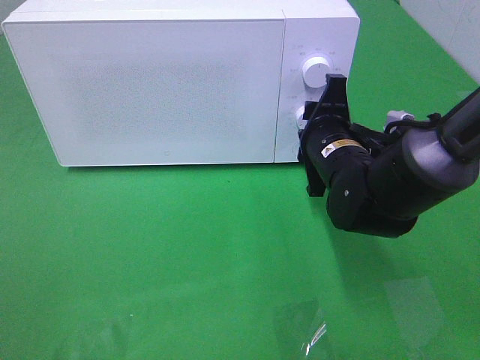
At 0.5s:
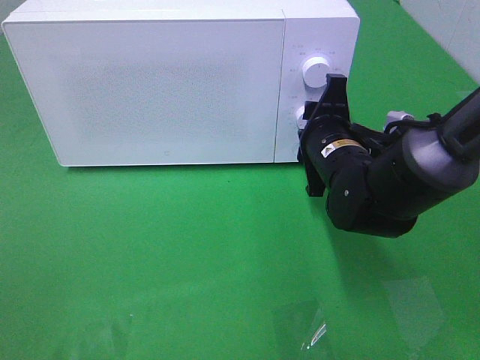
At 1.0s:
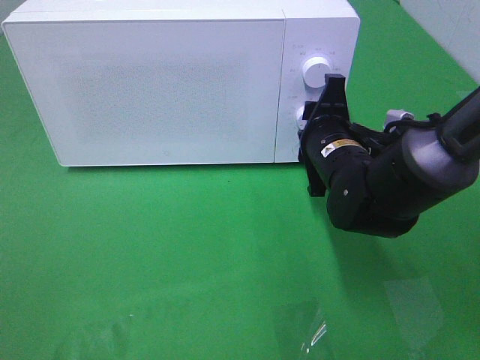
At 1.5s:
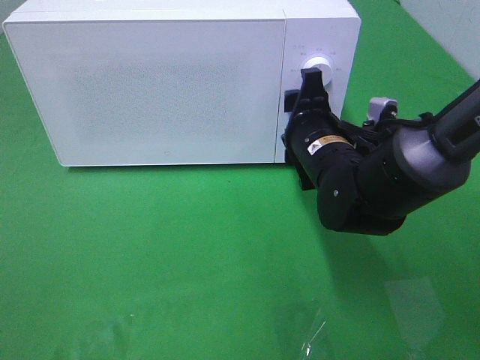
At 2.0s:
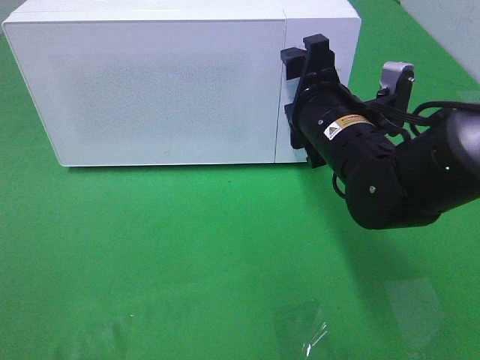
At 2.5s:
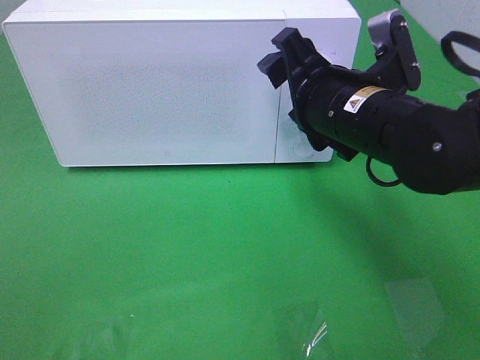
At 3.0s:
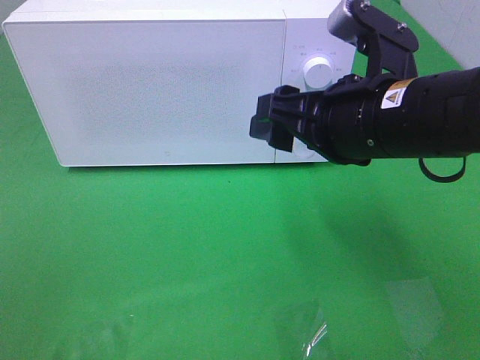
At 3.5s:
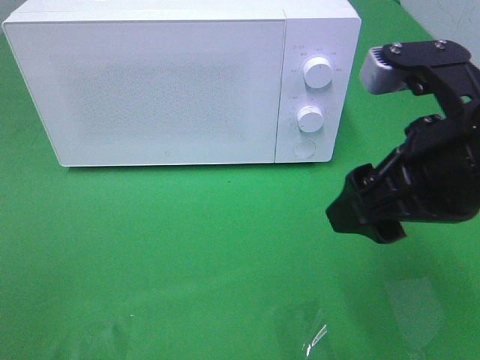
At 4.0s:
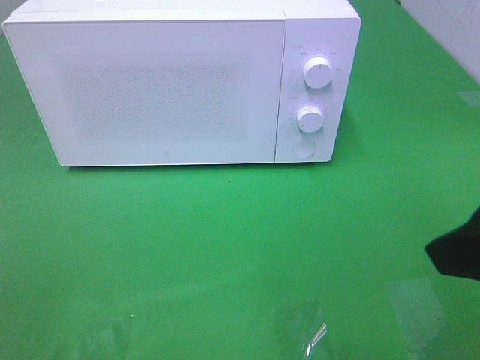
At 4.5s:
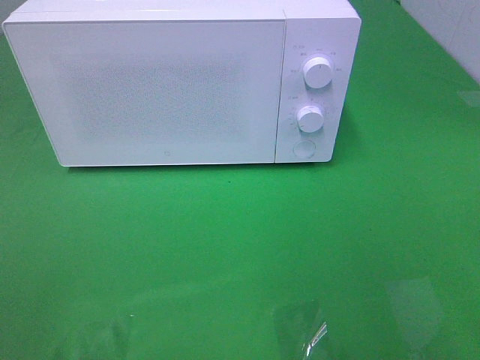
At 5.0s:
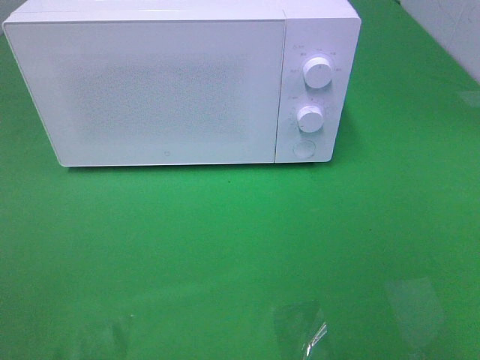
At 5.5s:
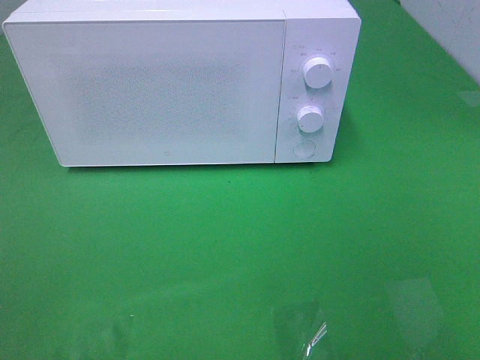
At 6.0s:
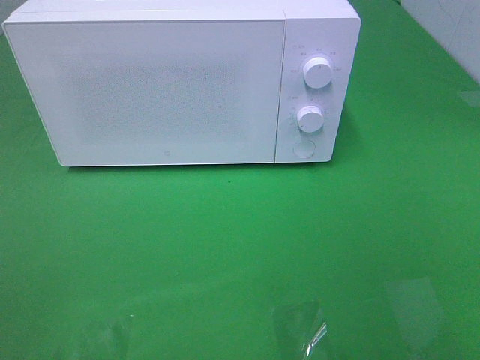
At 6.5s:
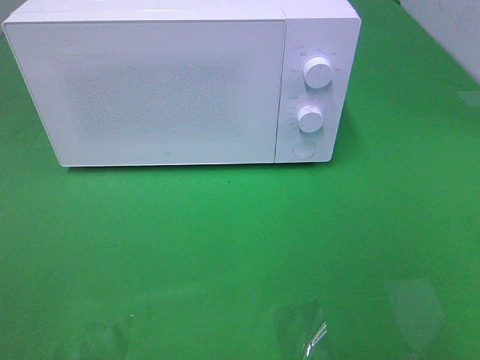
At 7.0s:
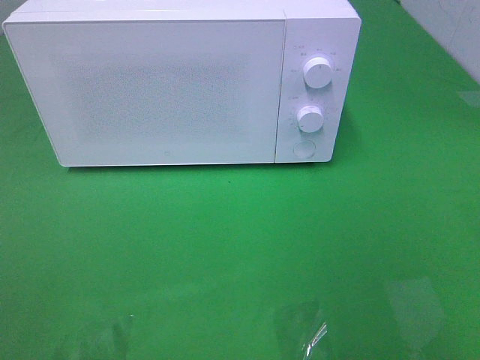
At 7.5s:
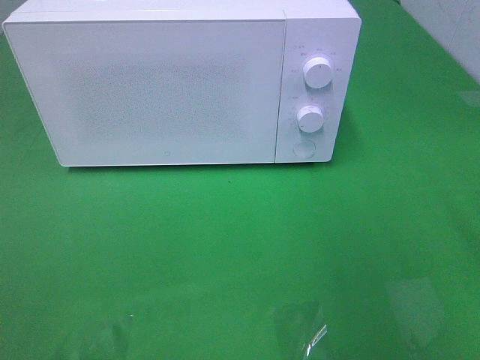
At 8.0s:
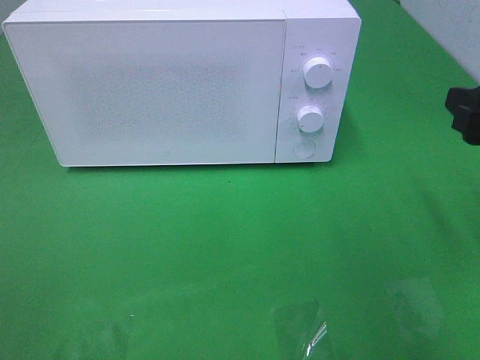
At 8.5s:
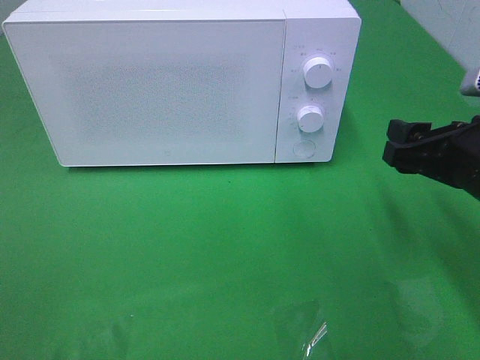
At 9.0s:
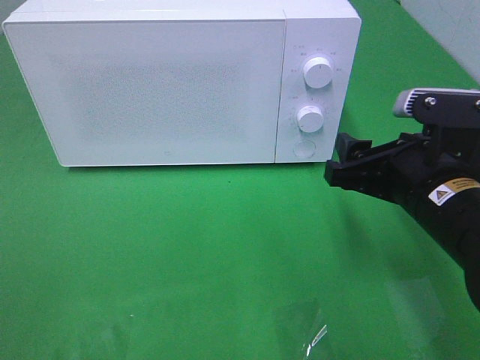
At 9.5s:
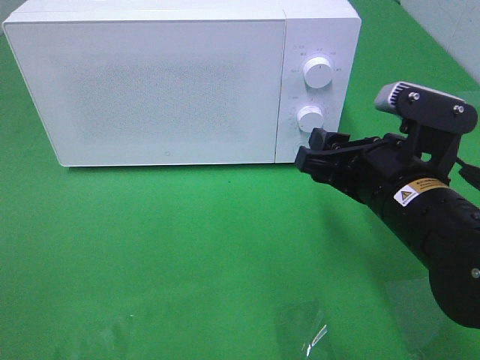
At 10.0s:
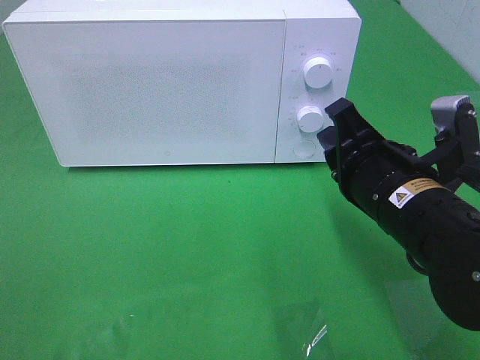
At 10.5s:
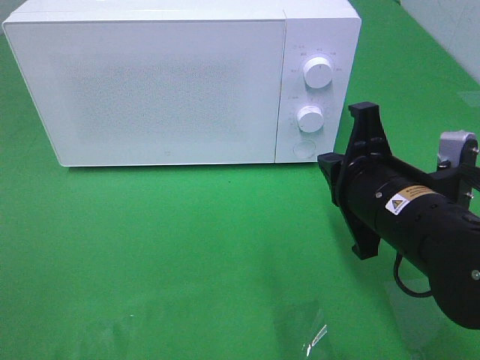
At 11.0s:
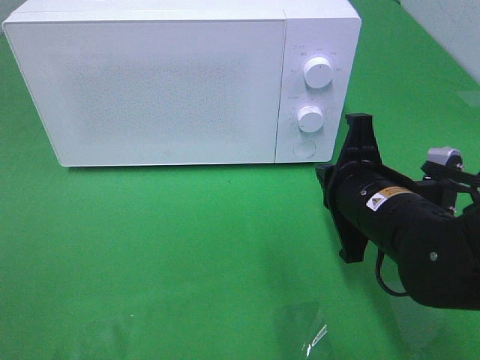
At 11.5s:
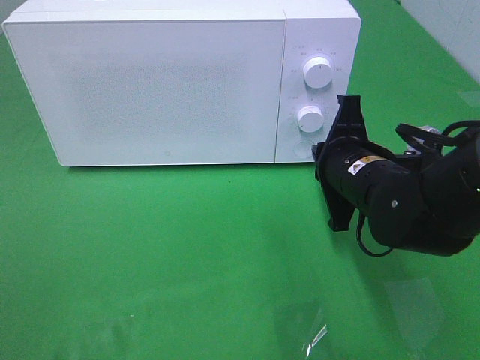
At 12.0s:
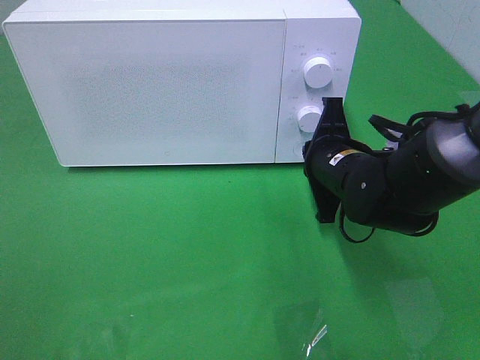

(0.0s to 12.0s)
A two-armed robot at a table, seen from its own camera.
Task of the whole recording: Heat the burger.
2.0s - 4.0s: The right gripper travels backward, upward and to the right by some 25 cm.
4.0s - 6.0s: The right gripper shifts roughly 15 cm backward and to the right.
6.0s - 8.0s: The right gripper heads forward, covering some 20 cm.
8.0s - 10.0s: The right gripper moves to the left and downward, some 15 cm, and closes its fingers.
10.0s - 12.0s: The right gripper is displaced forward and downward by approximately 10 cm.

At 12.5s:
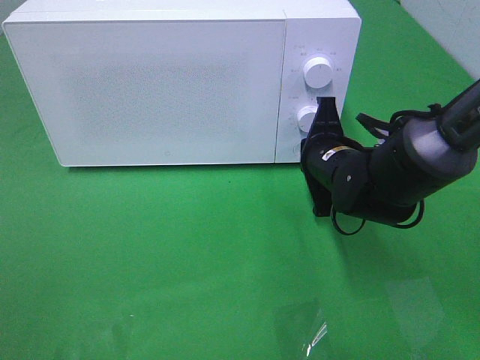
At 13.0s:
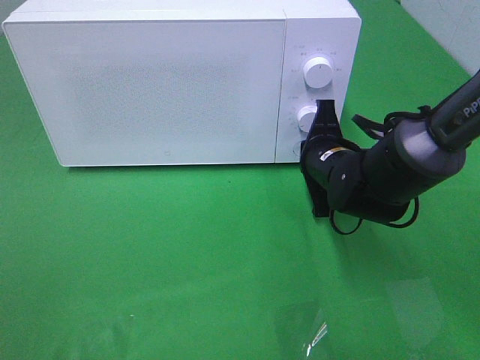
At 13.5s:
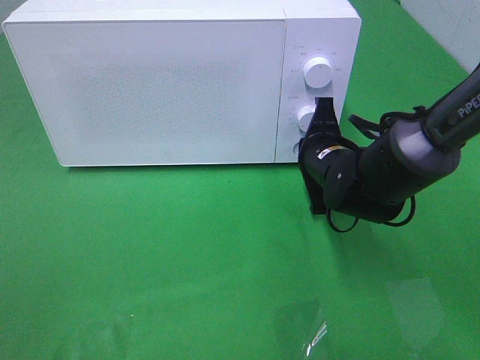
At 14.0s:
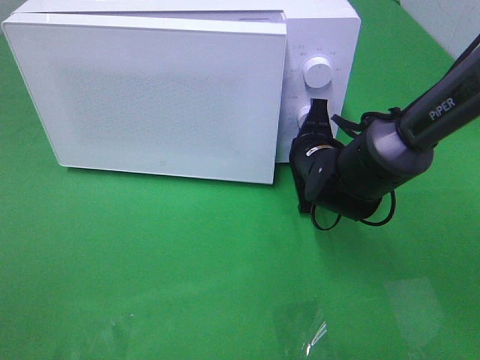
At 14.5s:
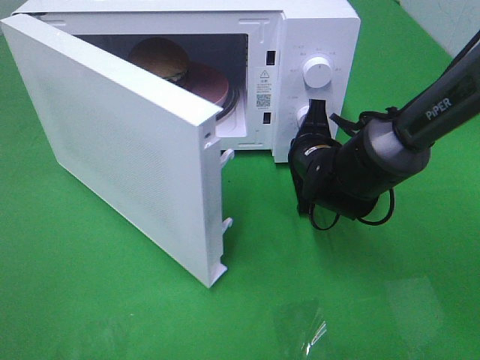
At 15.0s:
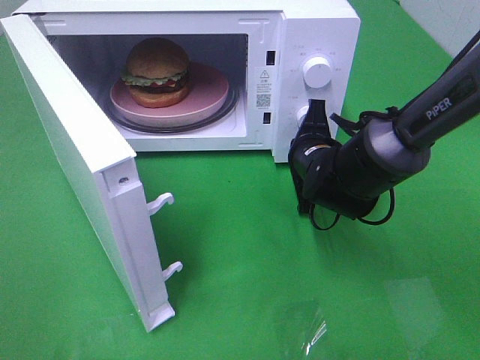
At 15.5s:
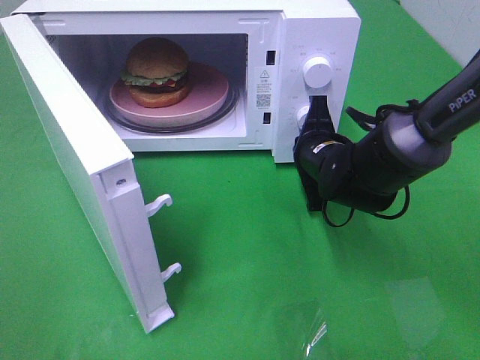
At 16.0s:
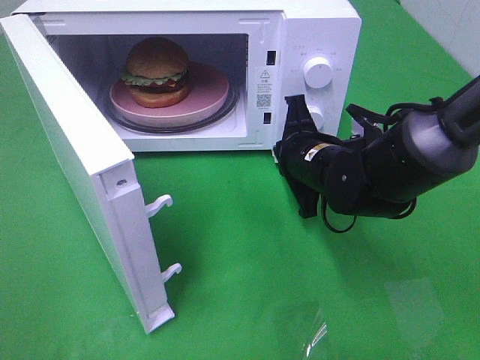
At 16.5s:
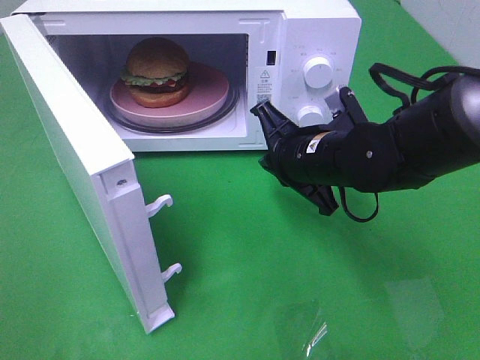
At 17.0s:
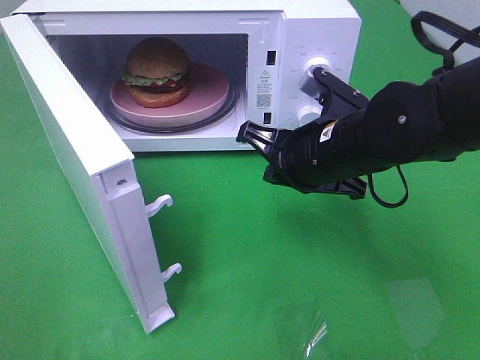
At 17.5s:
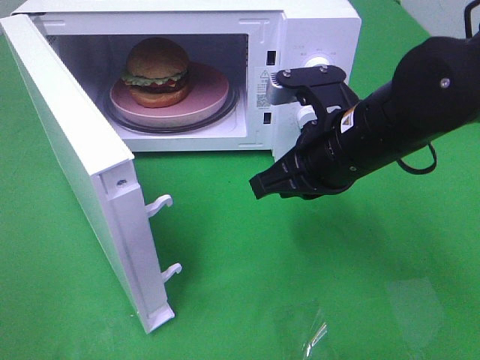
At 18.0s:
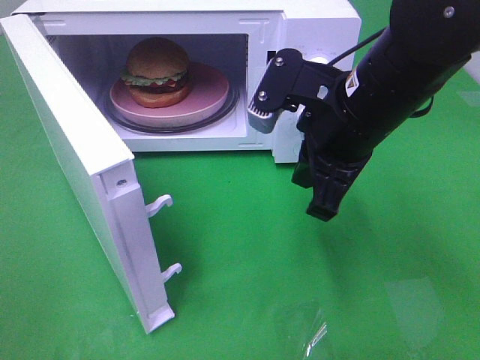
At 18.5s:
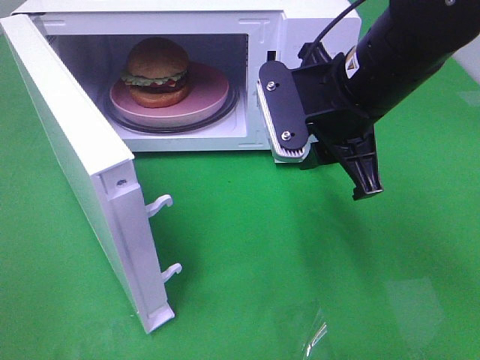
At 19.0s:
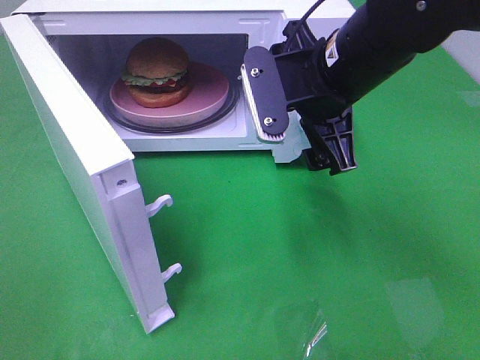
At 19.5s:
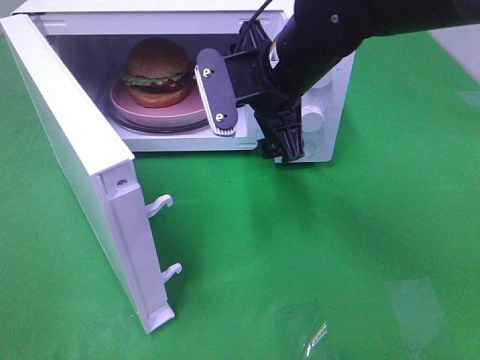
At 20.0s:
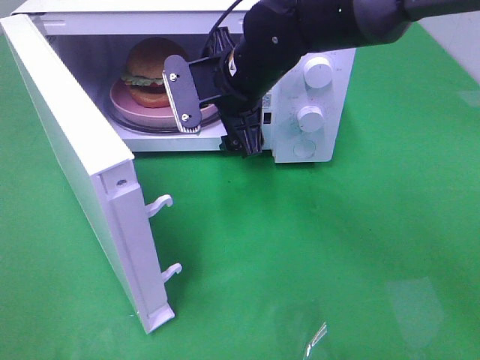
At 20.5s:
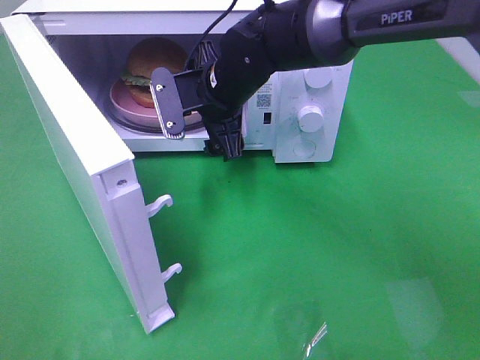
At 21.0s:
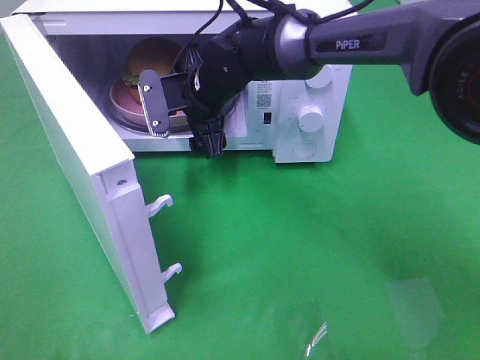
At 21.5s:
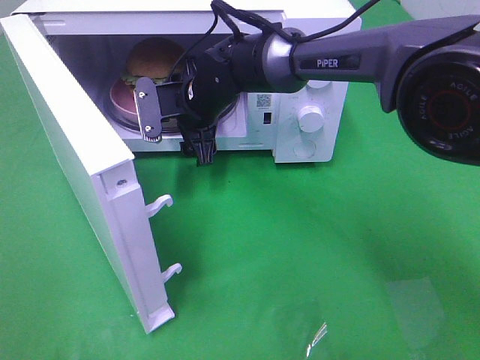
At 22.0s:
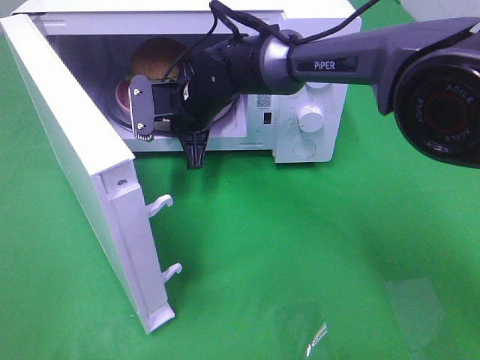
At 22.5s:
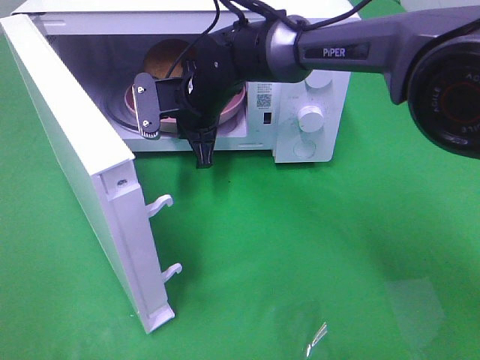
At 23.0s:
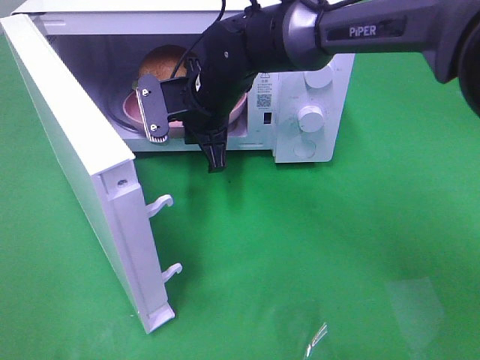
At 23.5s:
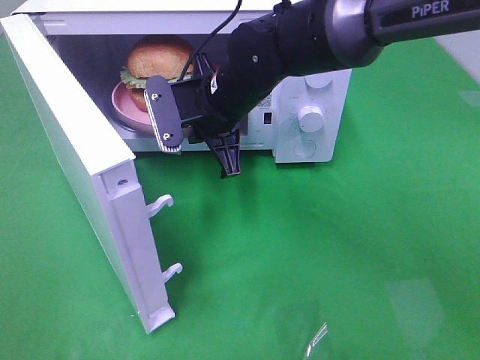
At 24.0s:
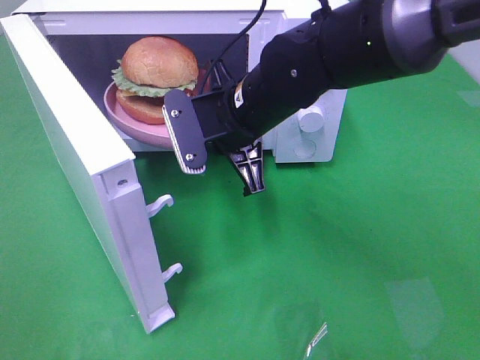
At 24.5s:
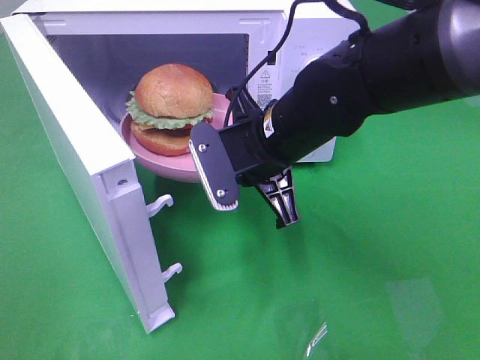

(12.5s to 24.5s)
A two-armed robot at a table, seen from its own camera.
Task of the whole recording: Heat the burger.
Step, 12.5s - 15.5s: Right hand: press the switch.
Step, 16.0s - 22.0s: Right hand: grab the plate with the hamburger.
14.5s - 16.5s: The right gripper is displaced backward and upward by about 5 cm.
16.5s - 18.5s: The right gripper travels upward by roughly 10 cm, and opens up.
18.5s - 20.5s: The right gripper travels to the left, forward and downward by about 20 cm, and opens its fingers.
20.5s - 22.5s: The right gripper closes up.
22.5s - 24.5s: The right gripper moves backward and to the right, roughly 15 cm.

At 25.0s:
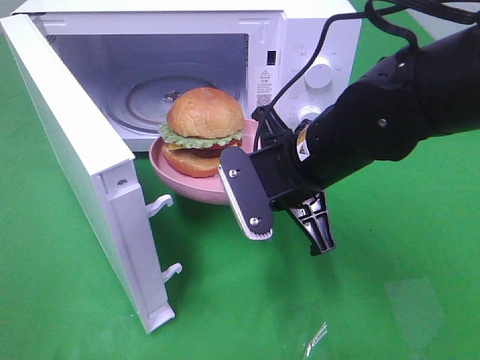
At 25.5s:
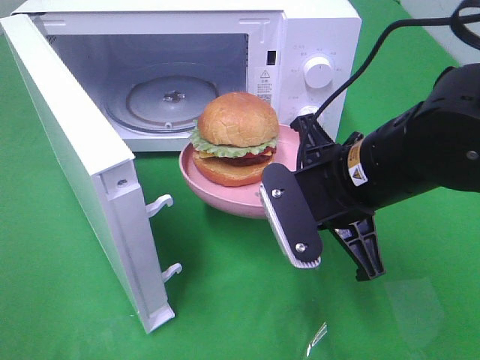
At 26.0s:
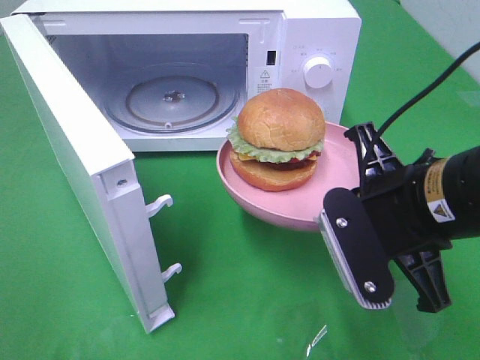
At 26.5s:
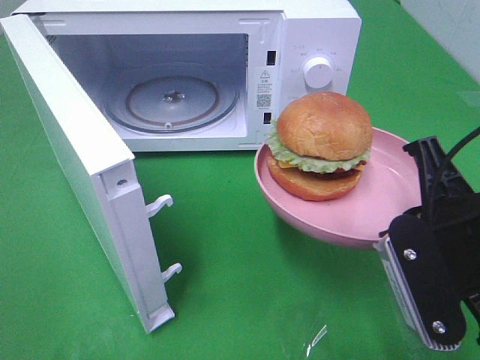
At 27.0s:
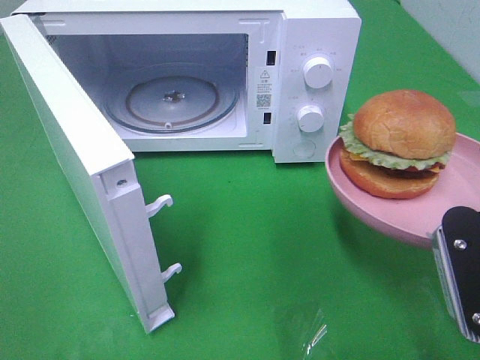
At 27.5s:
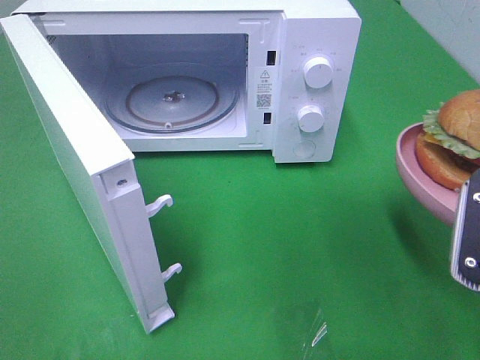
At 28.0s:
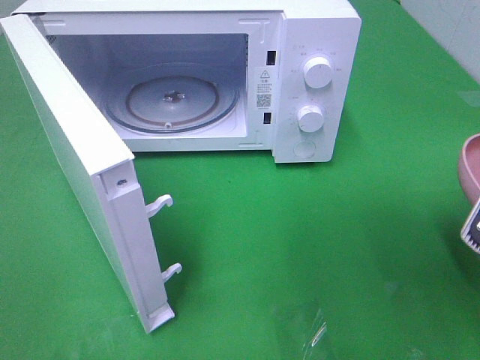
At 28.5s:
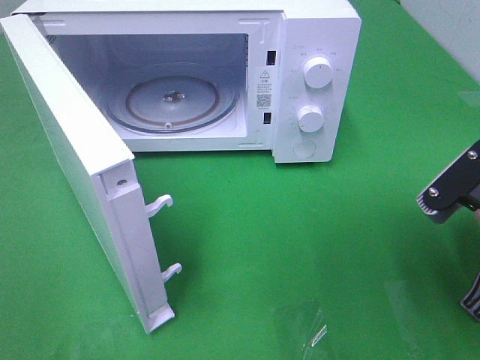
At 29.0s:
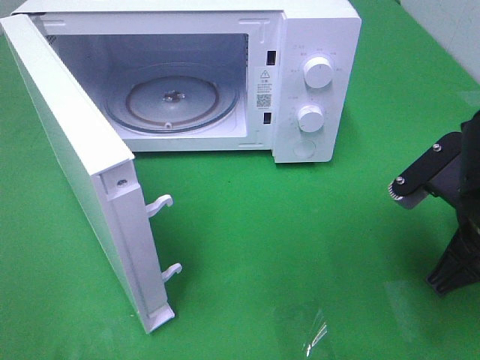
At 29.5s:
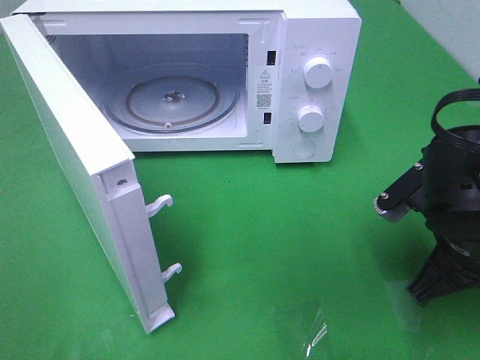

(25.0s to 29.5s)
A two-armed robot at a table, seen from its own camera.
Task of the whole recording: Heat the burger.
25.0s - 27.0s: The right gripper moves to the right and backward, about 20 cm.
27.0s - 29.5s: The right gripper goes about 10 cm downward and forward.
